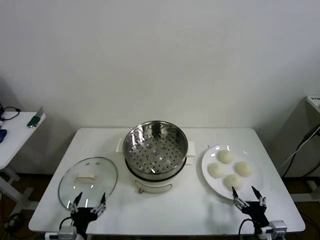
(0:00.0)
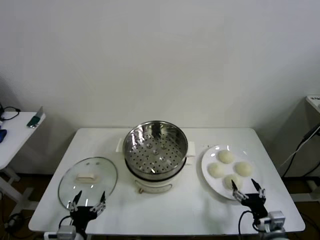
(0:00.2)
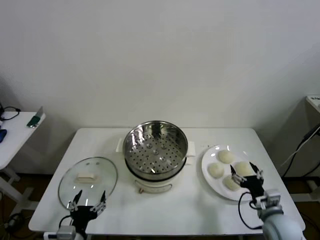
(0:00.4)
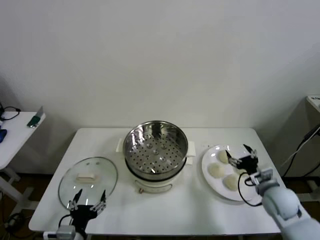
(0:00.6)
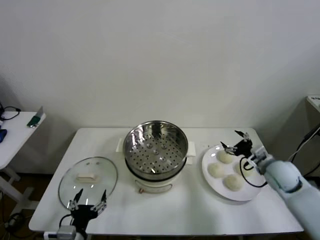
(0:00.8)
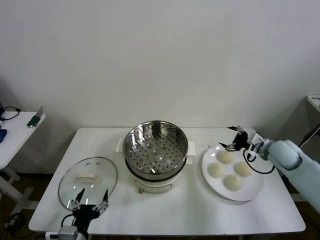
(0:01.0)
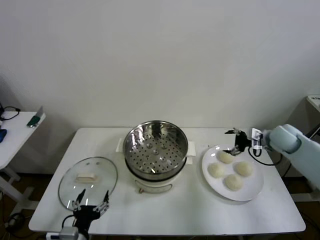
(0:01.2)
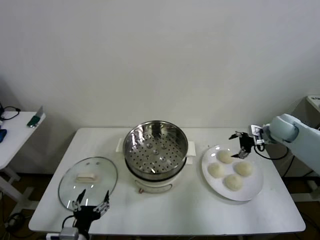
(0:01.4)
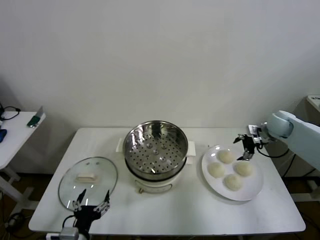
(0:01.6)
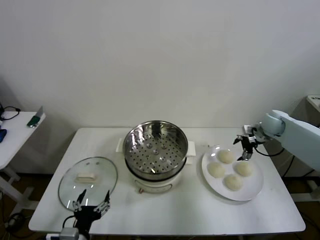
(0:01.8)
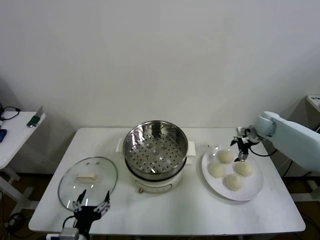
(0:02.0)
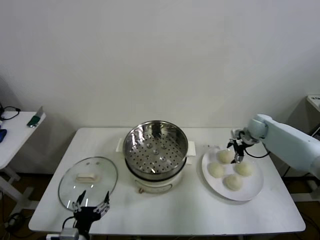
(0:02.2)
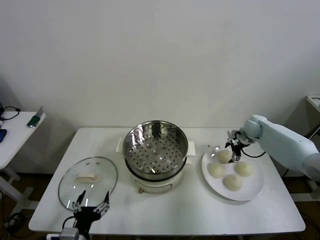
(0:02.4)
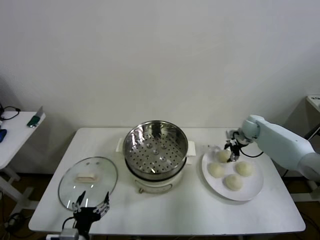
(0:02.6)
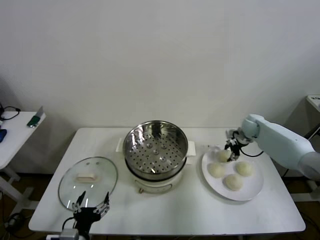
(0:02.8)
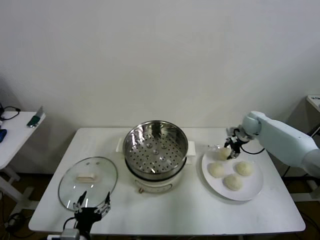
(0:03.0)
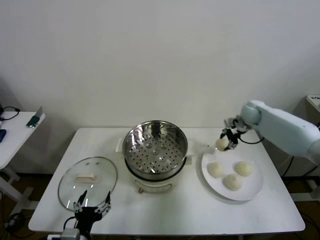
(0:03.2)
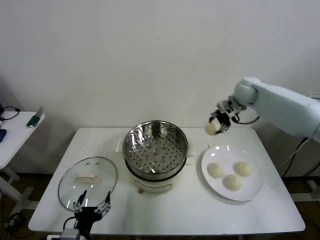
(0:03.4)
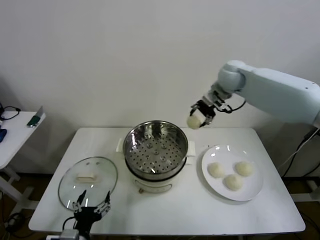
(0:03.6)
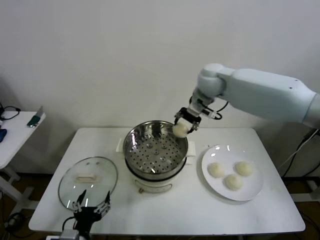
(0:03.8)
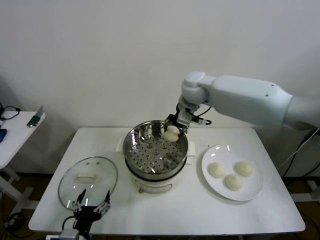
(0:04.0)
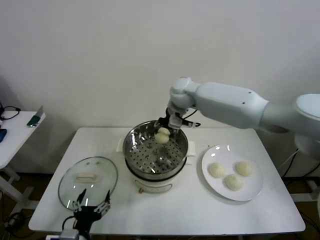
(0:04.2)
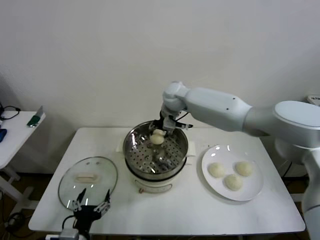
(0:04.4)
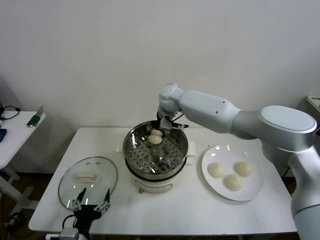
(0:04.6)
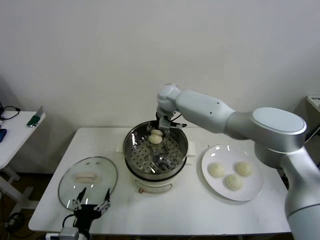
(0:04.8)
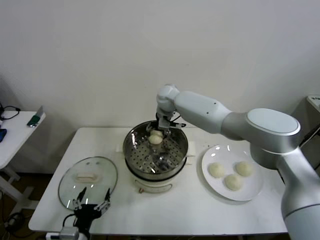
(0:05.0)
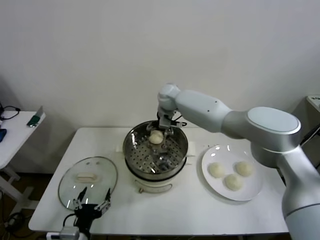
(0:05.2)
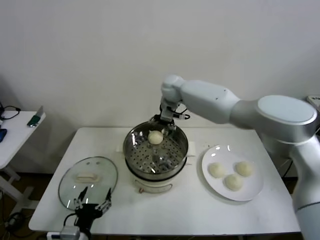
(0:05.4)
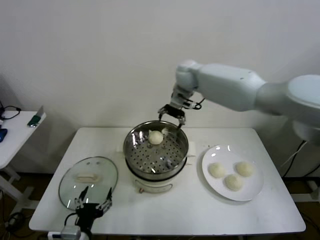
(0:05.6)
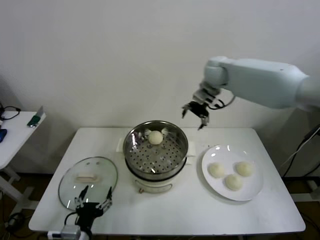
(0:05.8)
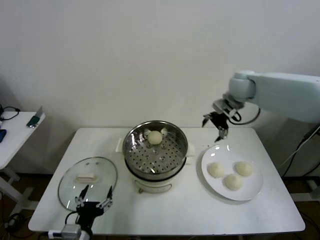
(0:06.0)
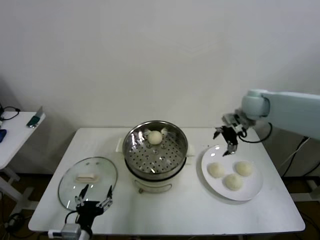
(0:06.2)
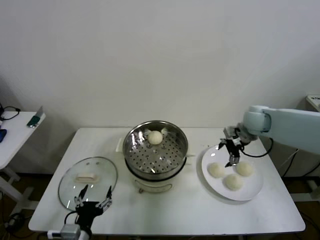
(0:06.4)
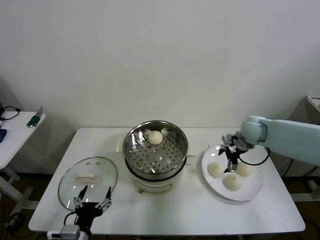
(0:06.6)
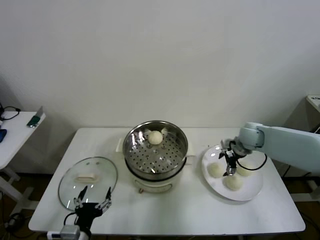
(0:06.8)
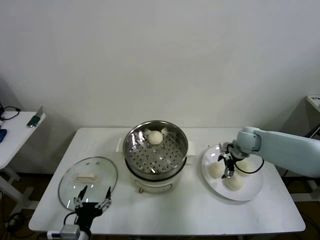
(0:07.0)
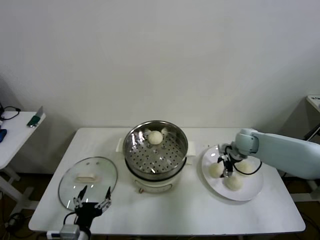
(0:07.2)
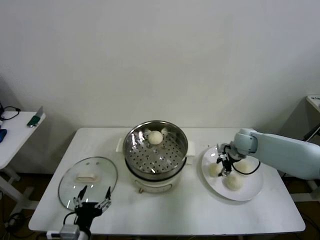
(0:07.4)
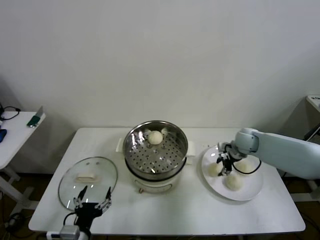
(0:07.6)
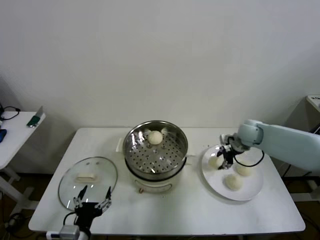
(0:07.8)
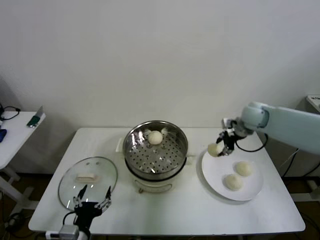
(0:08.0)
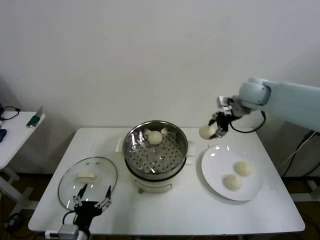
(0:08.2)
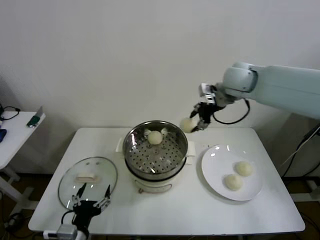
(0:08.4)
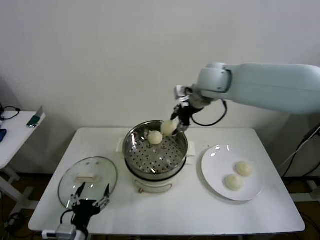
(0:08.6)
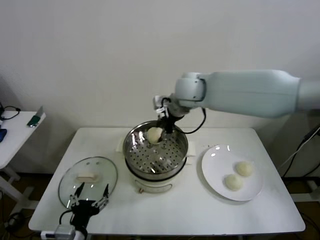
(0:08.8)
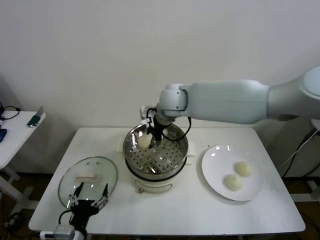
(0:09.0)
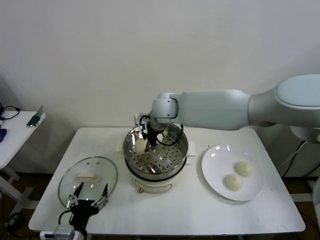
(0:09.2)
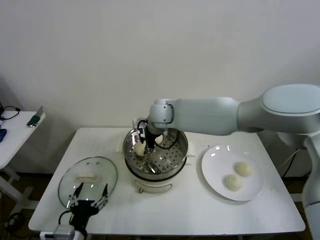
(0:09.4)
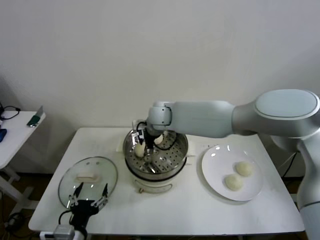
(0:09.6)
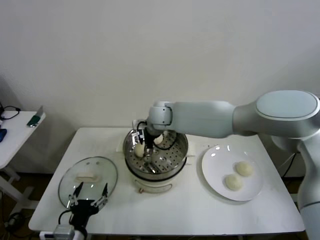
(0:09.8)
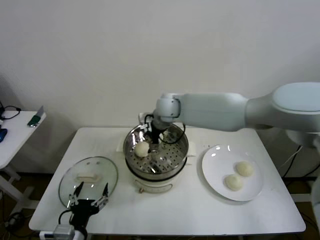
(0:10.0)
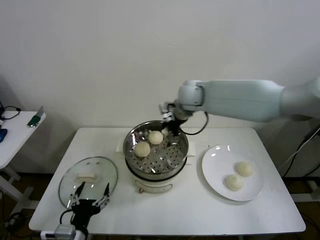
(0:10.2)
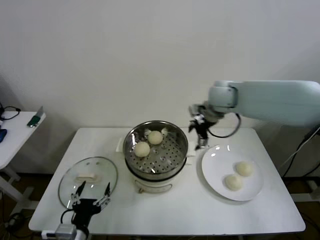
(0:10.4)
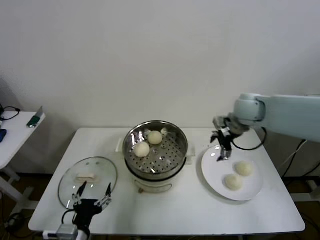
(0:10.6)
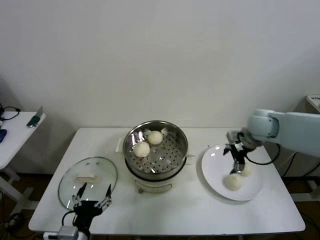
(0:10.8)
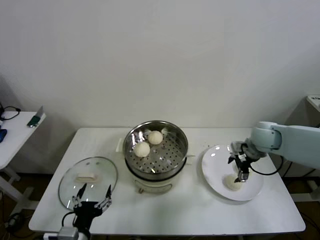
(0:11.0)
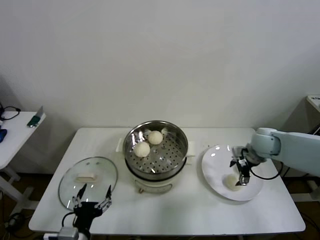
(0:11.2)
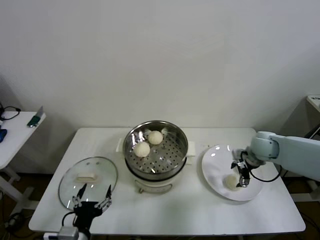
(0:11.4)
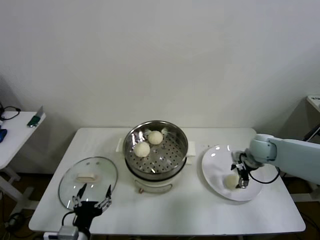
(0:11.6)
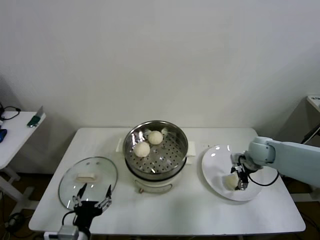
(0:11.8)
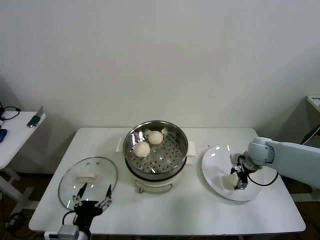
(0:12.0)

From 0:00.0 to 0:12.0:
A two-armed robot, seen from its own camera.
Step, from 0:00.0 to 0:02.6: Grasp the baozi in the plate with right gripper.
Step, from 0:02.8 to 0:05.0: Place the baozi on the steamer with right gripper.
Step, from 0:05.2 to 0:07.4: Grasp the baozi in the plate with right gripper.
Step, from 0:07.6 to 0:09.8: Place the baozi on the steamer with right gripper.
Step, from 0:10.0 to 0:12.0: Grasp the baozi in the plate with right gripper.
From 0:01.6 to 0:03.0: The right gripper is displaced to the left and forward by approximately 10 cm, and closes up.
From 0:03.0 to 0:04.4: The right gripper travels to the left by about 35 cm.
From 0:04.4 to 0:06.0: The right gripper goes some 25 cm to the right, and opens its fingers.
From 0:06.0 to 0:07.6: The right gripper goes roughly 15 cm downward, and closes.
From 0:07.6 to 0:09.0: The right gripper goes roughly 35 cm to the left and upward.
From 0:09.0 to 0:10.4: The right gripper shifts approximately 20 cm to the right, and opens its fingers.
From 0:10.4 to 0:12.0: The right gripper travels downward and to the right by approximately 25 cm, and closes its fingers.

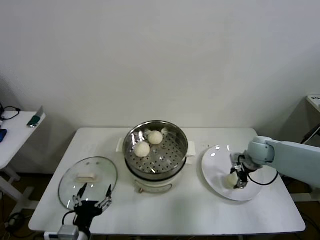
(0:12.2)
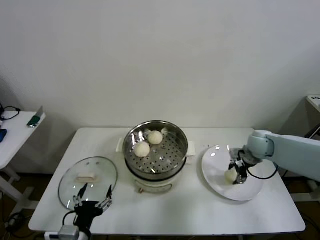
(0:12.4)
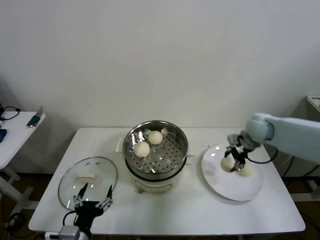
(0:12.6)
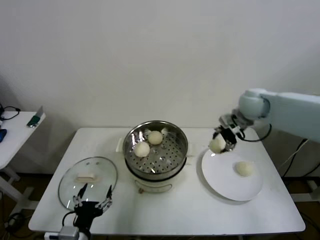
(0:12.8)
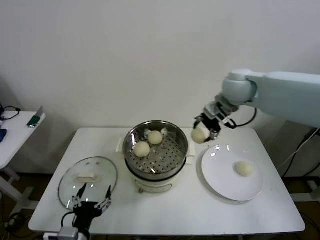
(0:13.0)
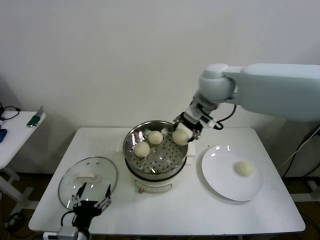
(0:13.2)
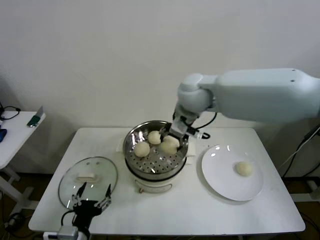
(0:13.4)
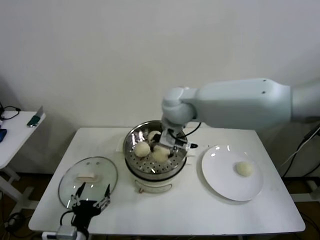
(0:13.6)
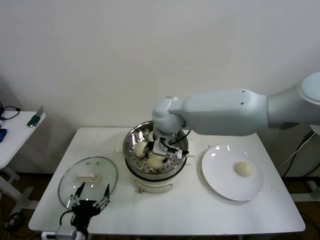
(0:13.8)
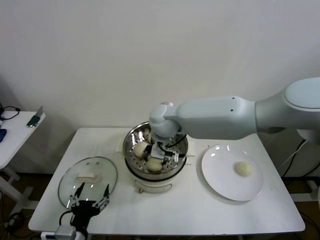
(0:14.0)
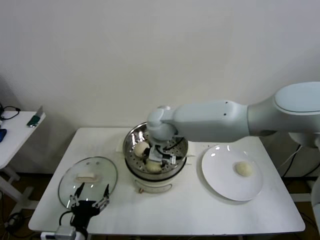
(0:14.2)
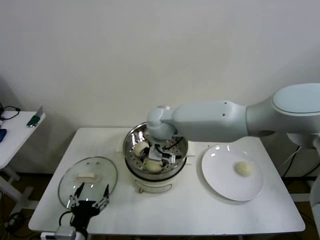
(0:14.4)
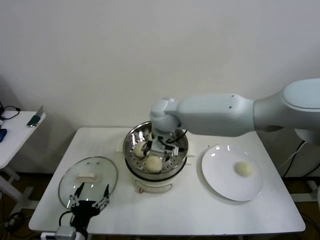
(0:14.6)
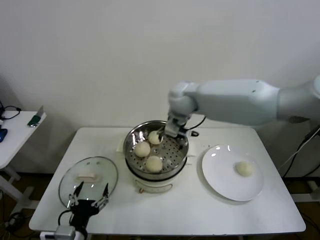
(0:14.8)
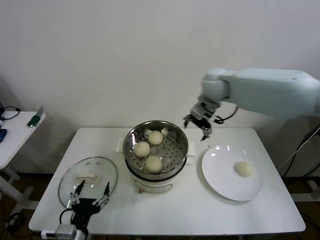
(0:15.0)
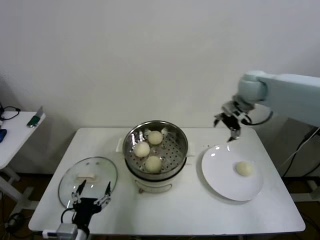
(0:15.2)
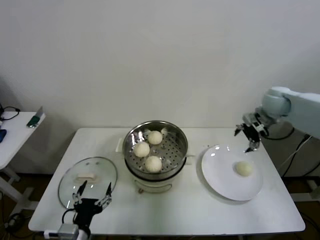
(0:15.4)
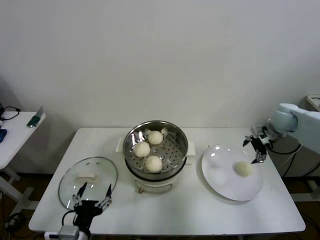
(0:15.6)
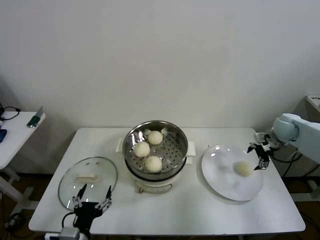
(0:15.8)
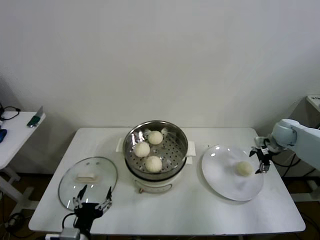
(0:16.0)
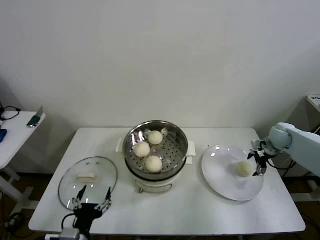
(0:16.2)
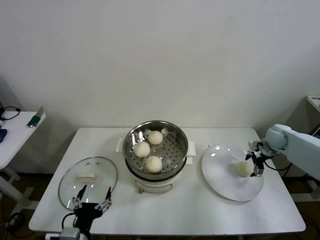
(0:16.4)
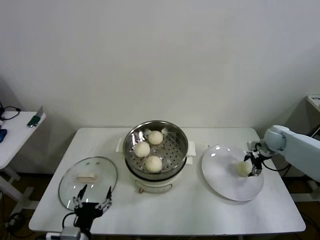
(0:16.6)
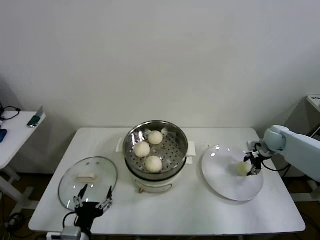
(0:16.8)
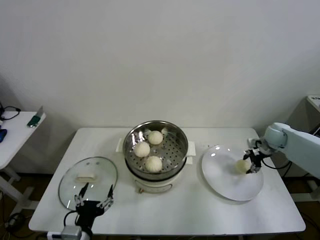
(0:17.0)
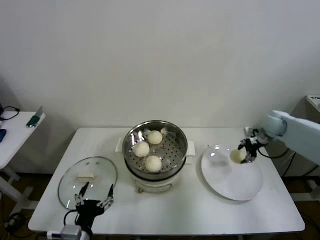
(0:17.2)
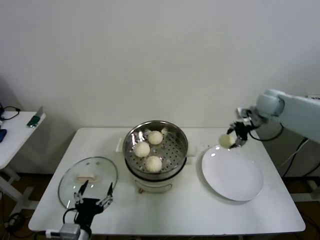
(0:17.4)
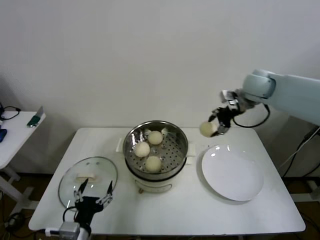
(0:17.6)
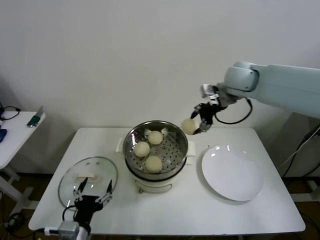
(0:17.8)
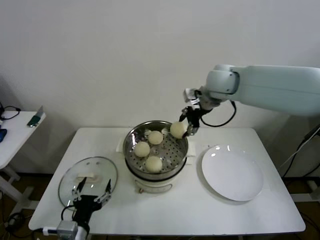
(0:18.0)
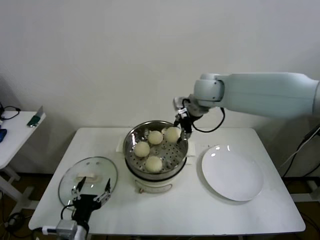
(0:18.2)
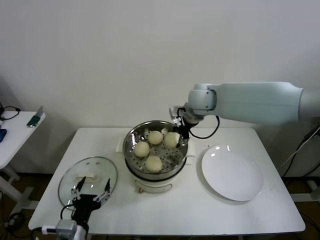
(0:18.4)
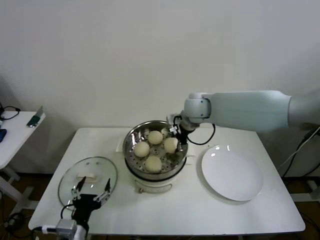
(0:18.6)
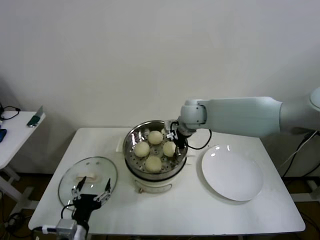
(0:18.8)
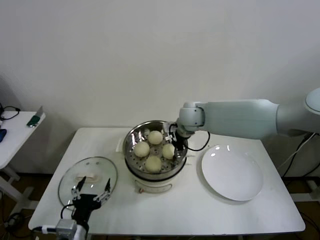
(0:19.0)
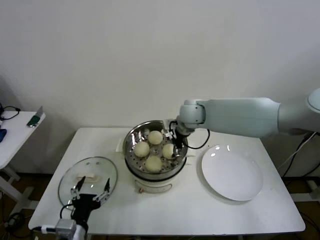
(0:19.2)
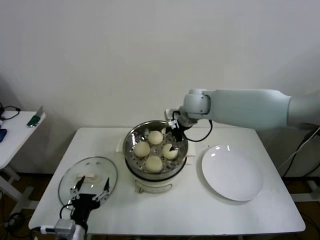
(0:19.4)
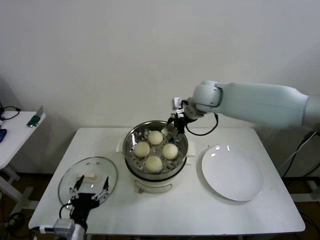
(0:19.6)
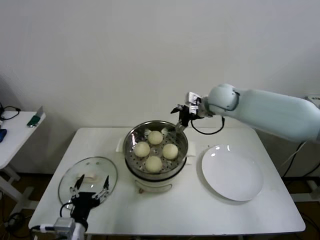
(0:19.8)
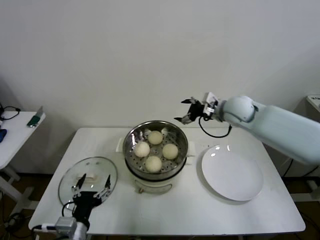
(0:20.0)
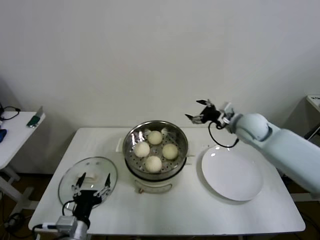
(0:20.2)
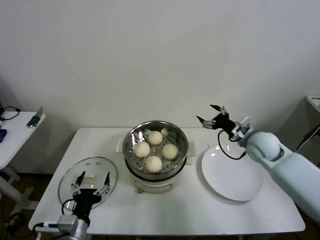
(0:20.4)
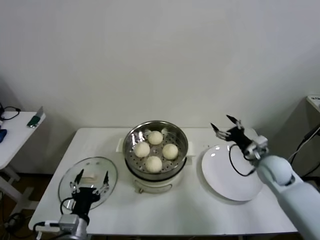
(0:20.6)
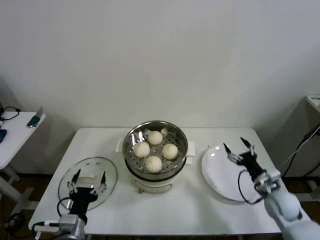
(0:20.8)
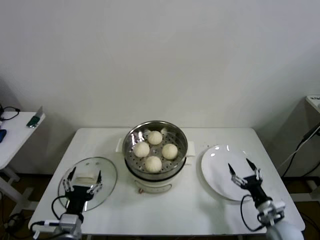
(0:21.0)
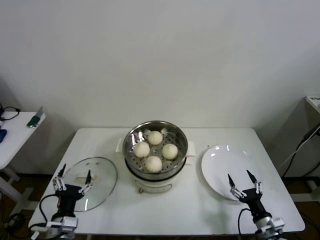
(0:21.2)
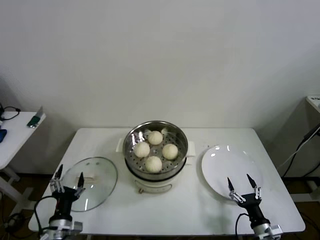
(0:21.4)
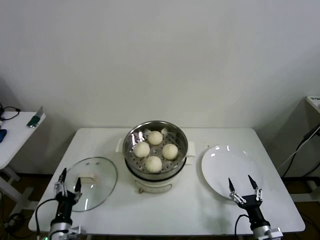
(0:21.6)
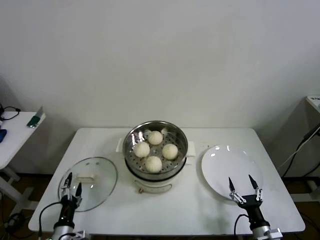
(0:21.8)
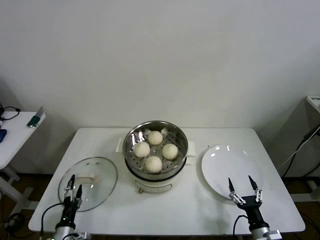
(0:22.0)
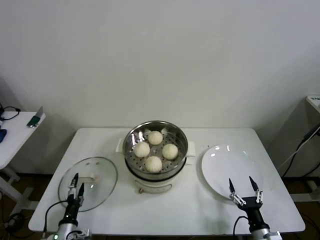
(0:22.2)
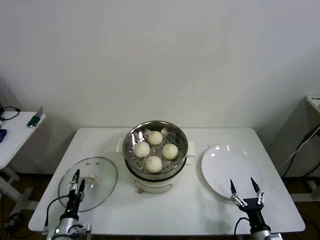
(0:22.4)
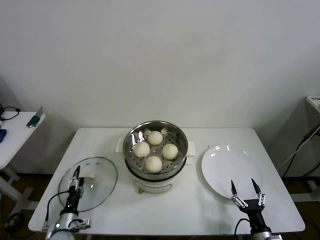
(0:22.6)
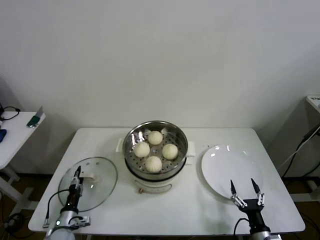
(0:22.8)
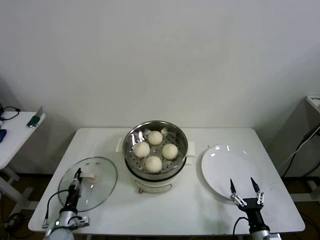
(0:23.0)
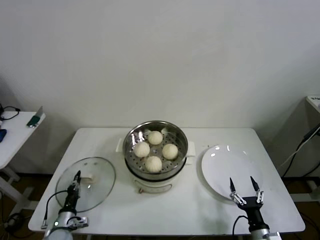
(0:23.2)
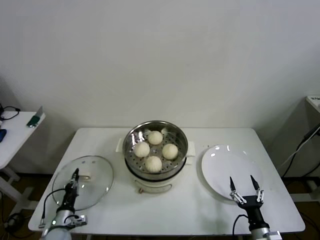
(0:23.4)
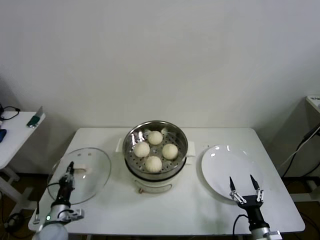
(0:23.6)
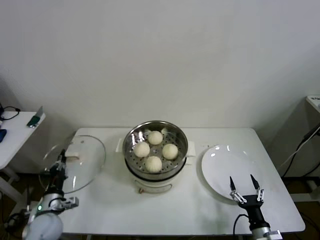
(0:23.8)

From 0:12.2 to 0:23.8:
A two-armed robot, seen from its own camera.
Step, from 0:12.2 to 0:14.4: Place the baozi on the steamer with right gripper.
Step, from 0:14.6 to 0:16.8: Grasp the baozi in the plate with right gripper.
Step, from 0:17.0 to 0:19.0: Place the baozi on the steamer with right gripper.
Step, from 0:19.2 to 0:23.2: Grasp the pot lid with left gripper.
From 0:12.2 to 0:13.6: The right gripper is displaced to the left and upward by approximately 40 cm.
From 0:13.6 to 0:15.0: The right gripper is displaced to the right and forward by approximately 20 cm, and opens up.
From 0:15.0 to 0:16.6: The right gripper goes approximately 35 cm to the right and downward.
From 0:16.6 to 0:18.0: The right gripper is displaced to the left and upward by about 40 cm, and closes.
From 0:18.0 to 0:19.4: The right gripper heads downward and to the left, covering approximately 10 cm, and opens up.
From 0:19.4 to 0:21.0: The right gripper travels downward, backward and to the right by roughly 50 cm.
From 0:21.0 to 0:22.4: The left gripper is displaced downward and to the left by about 20 cm. Meanwhile the right gripper travels backward by roughly 10 cm.
From 0:22.4 to 0:23.8: The left gripper goes roughly 10 cm upward, and closes up.
